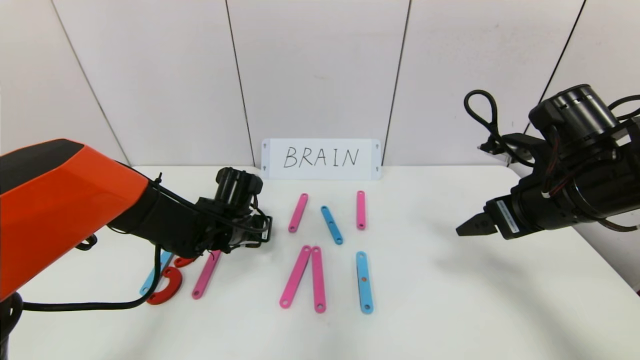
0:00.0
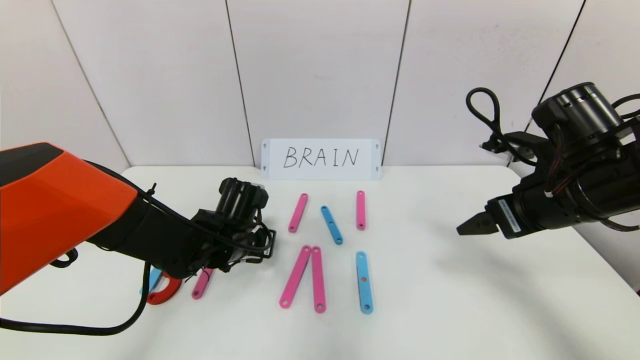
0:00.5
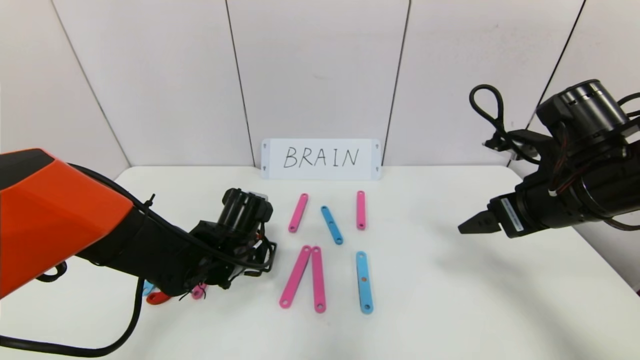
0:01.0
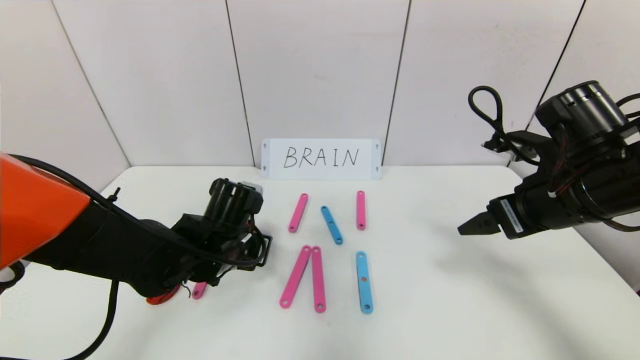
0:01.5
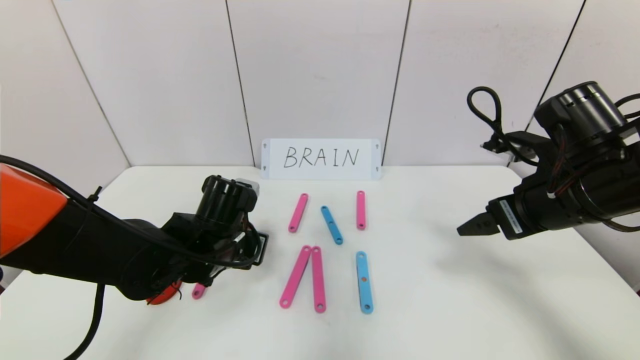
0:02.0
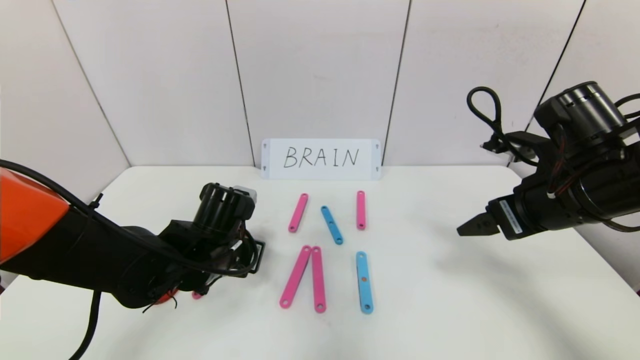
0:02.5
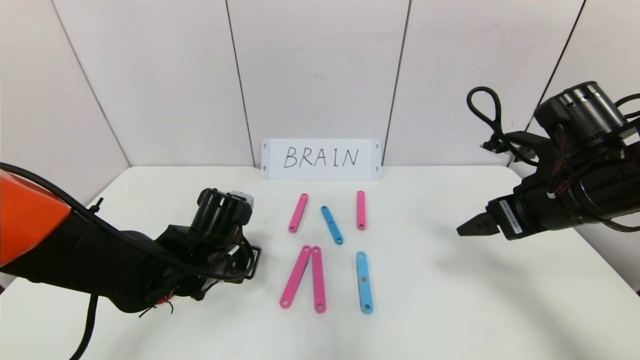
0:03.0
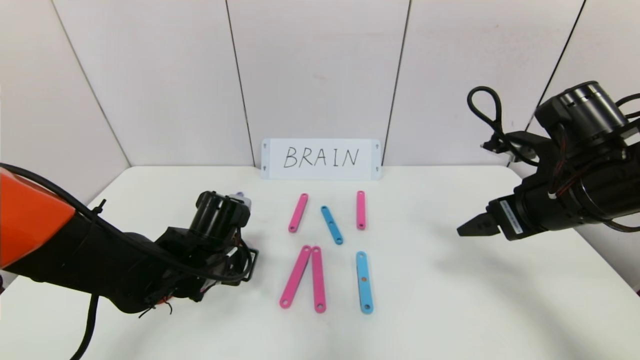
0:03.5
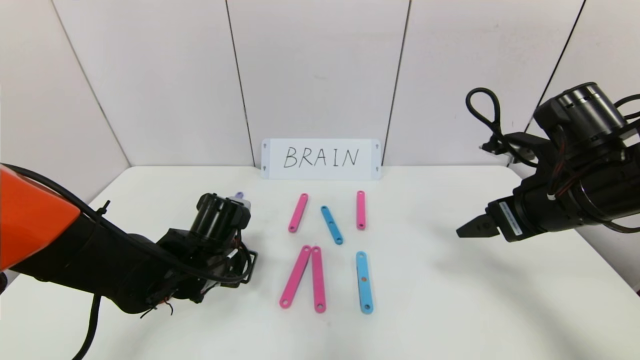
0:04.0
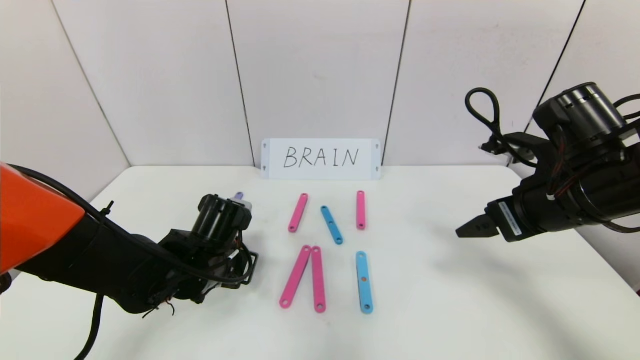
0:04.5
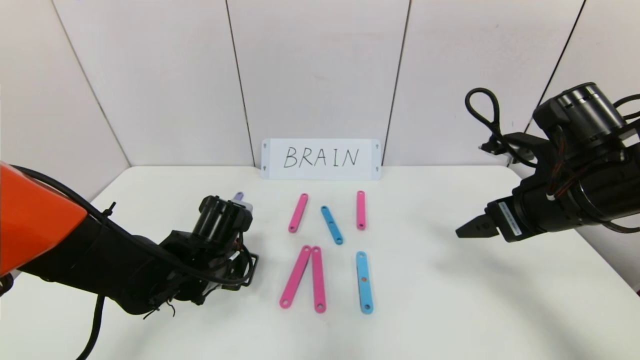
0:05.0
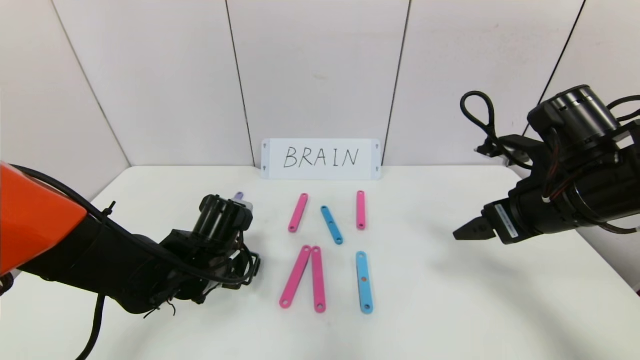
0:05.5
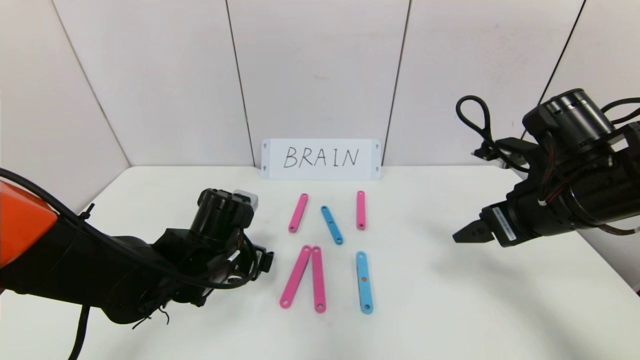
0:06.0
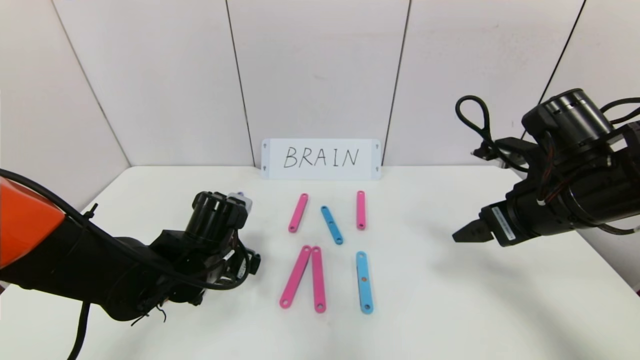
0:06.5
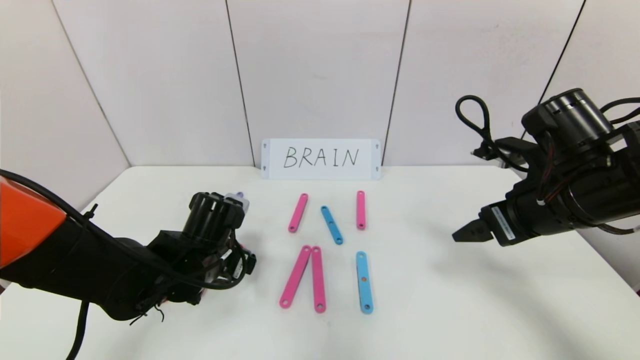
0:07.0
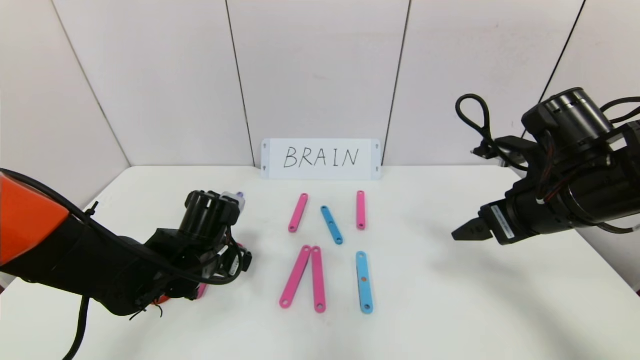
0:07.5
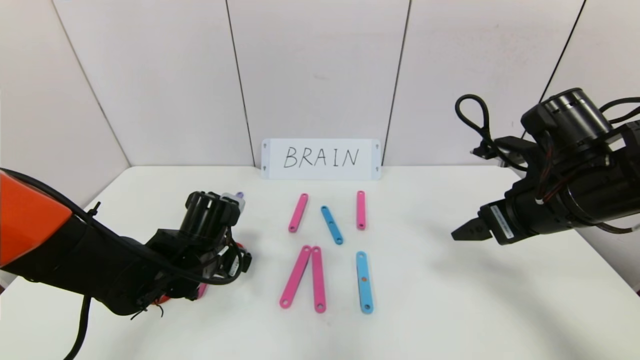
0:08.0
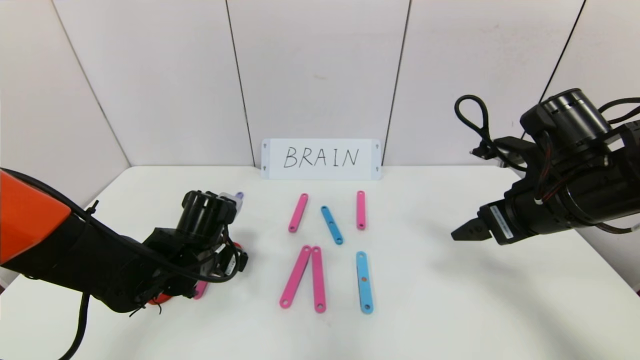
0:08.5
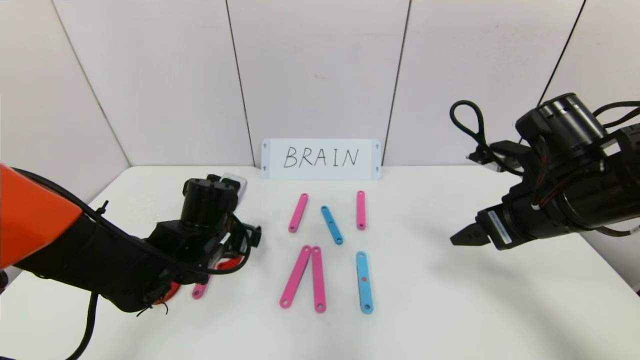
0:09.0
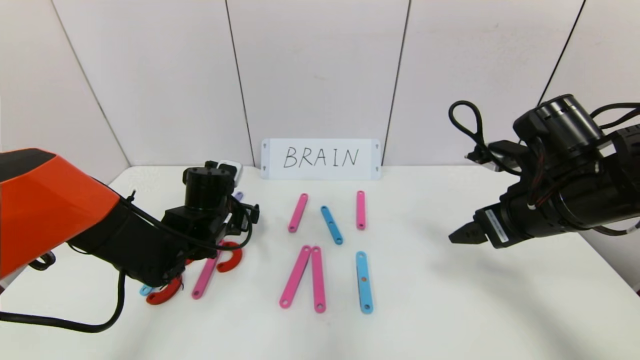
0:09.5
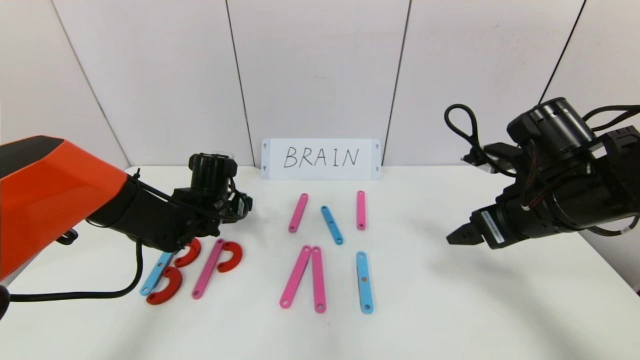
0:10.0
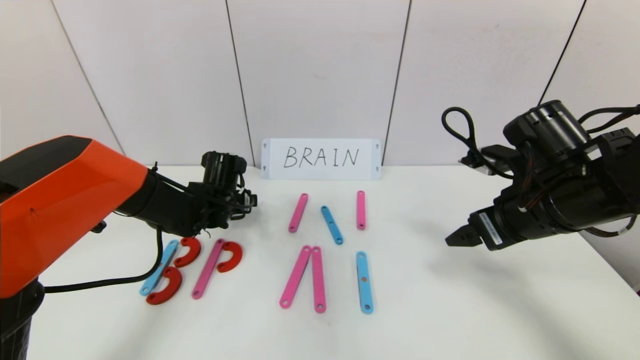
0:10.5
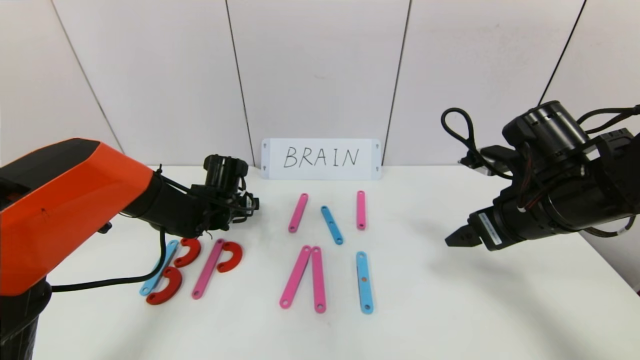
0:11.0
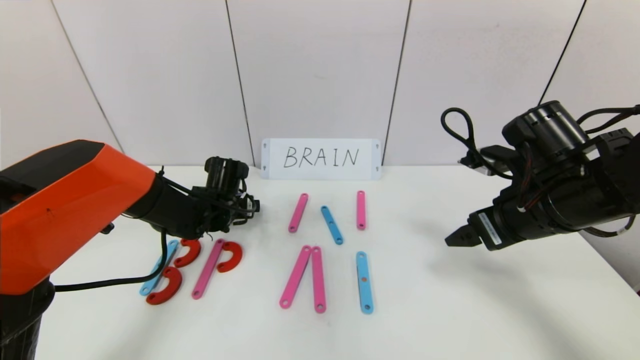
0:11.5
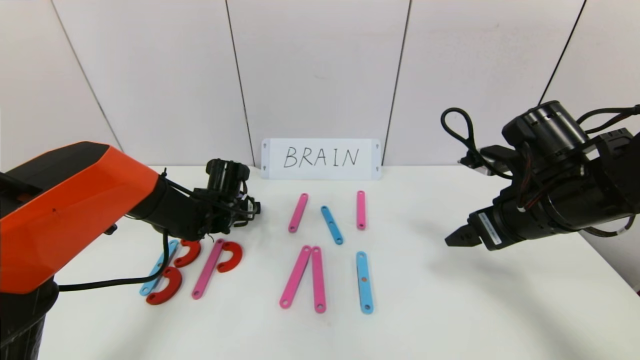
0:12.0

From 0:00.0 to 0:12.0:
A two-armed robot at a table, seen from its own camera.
Task of the whole recording: rearrange the word baai as brain.
From 0:00.0 to 0:02.0: The left gripper shifts approximately 5 cm backward.
From 0:02.0 to 0:04.0: The grippers move only a little.
From 0:04.0 to 0:06.0: The left gripper opens.
From 0:06.0 to 0:08.0: The grippers move only a little.
From 0:08.0 to 0:10.0: The left gripper goes about 10 cm forward.
From 0:10.0 to 0:12.0: The grippers move only a little.

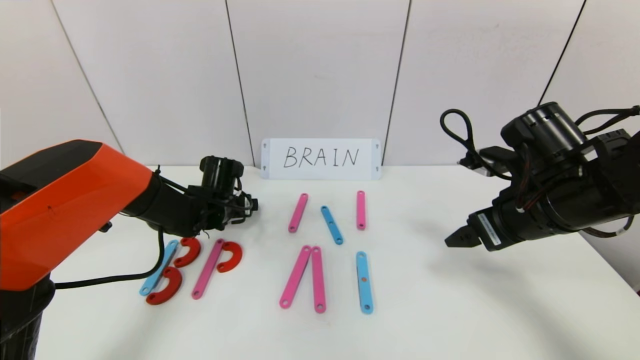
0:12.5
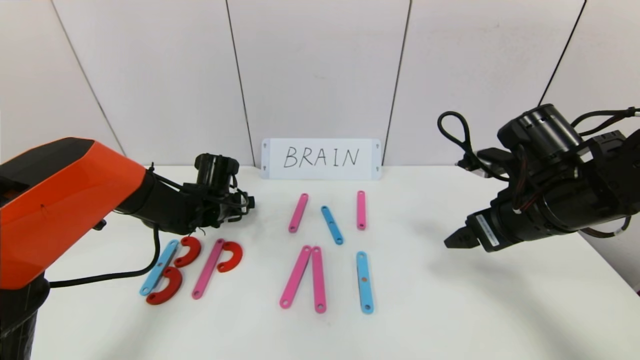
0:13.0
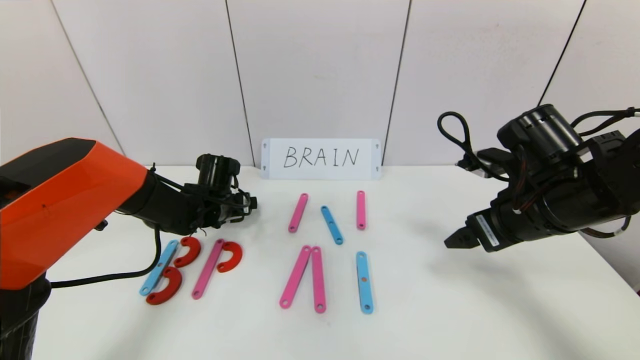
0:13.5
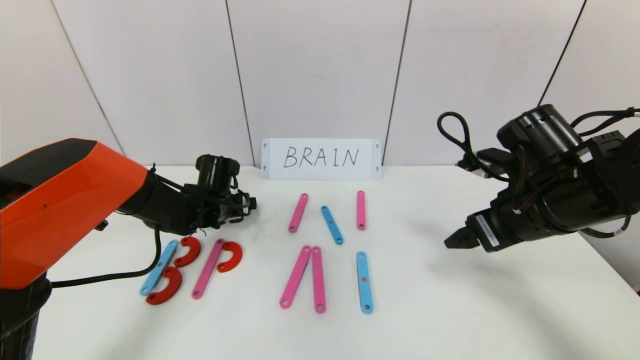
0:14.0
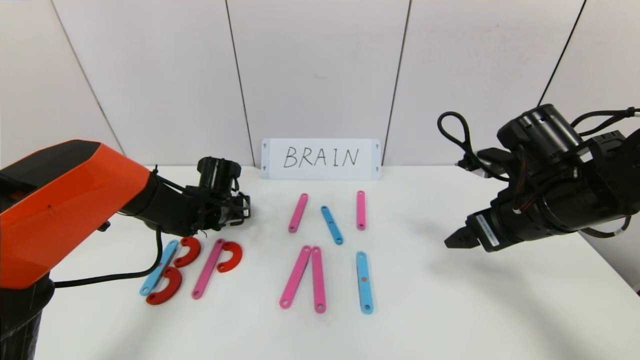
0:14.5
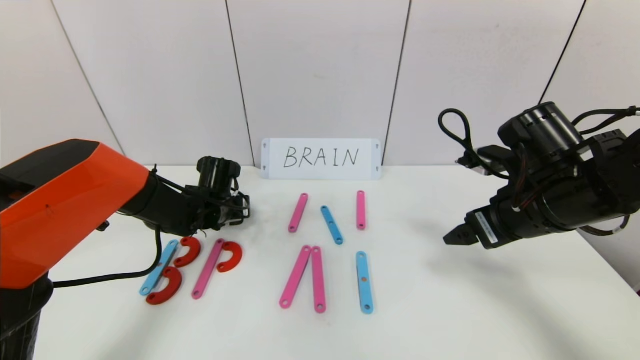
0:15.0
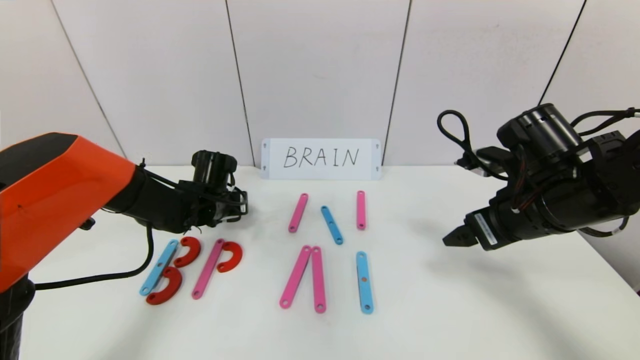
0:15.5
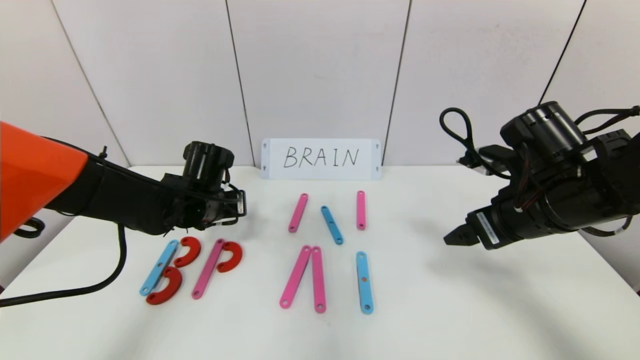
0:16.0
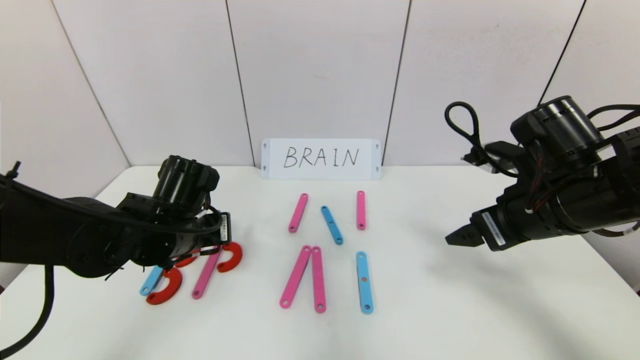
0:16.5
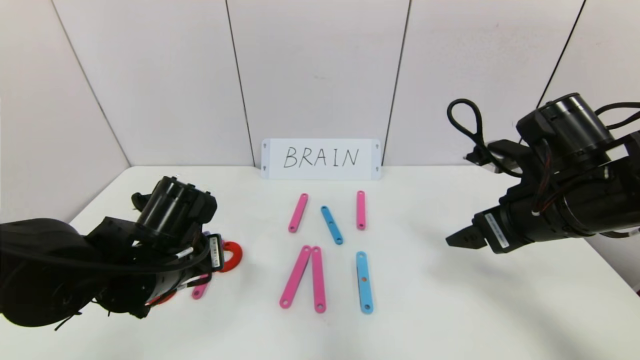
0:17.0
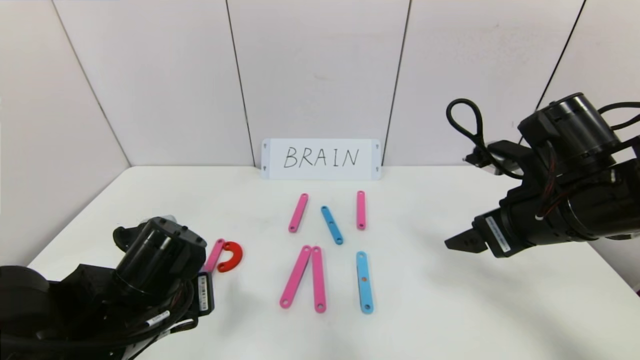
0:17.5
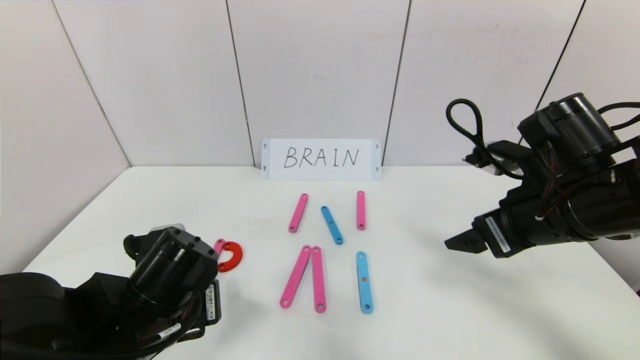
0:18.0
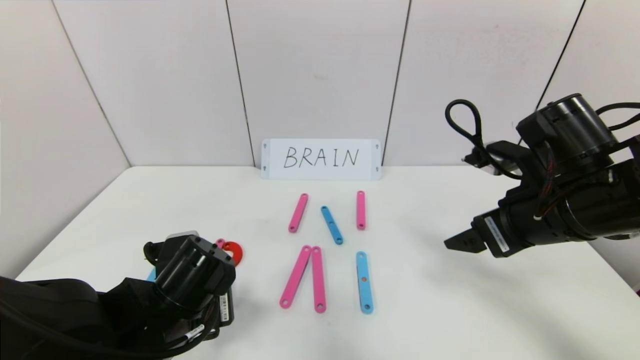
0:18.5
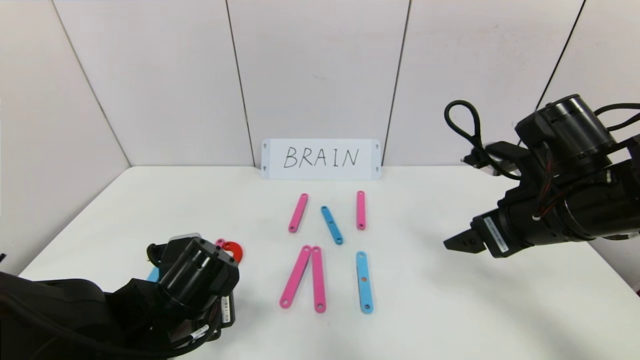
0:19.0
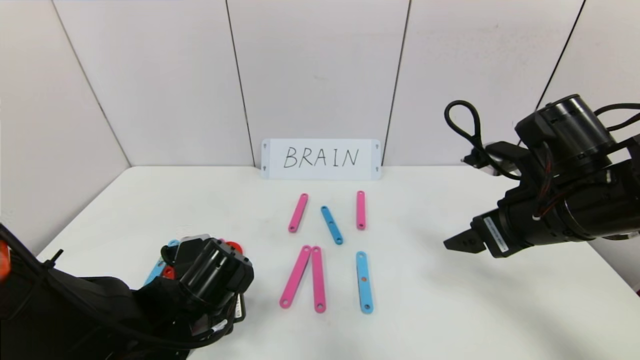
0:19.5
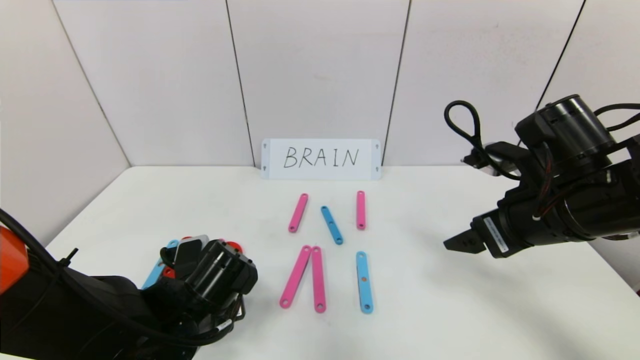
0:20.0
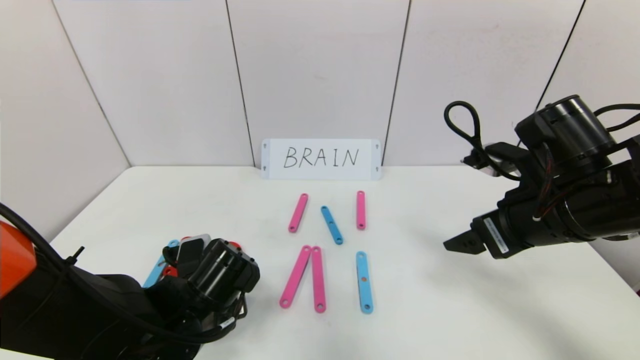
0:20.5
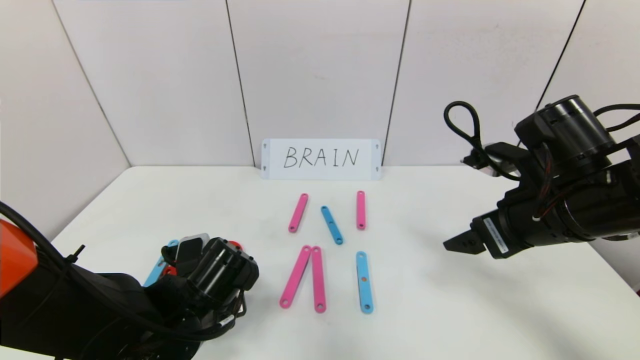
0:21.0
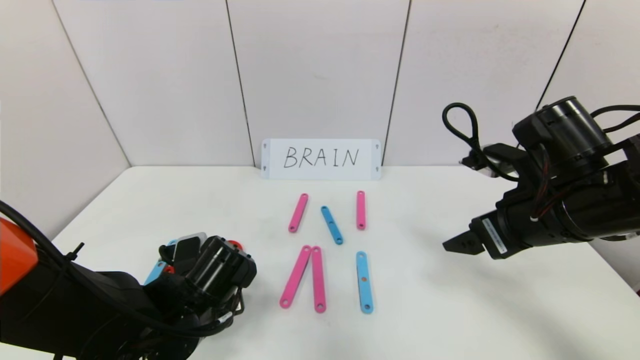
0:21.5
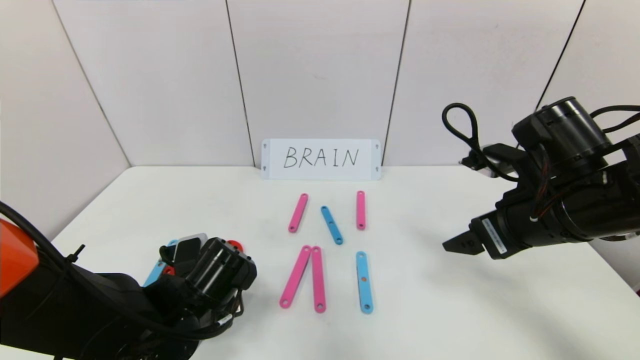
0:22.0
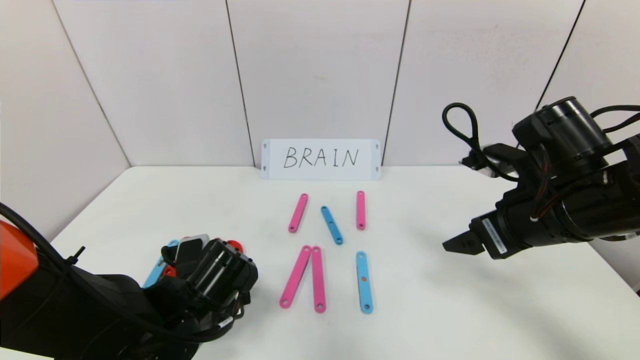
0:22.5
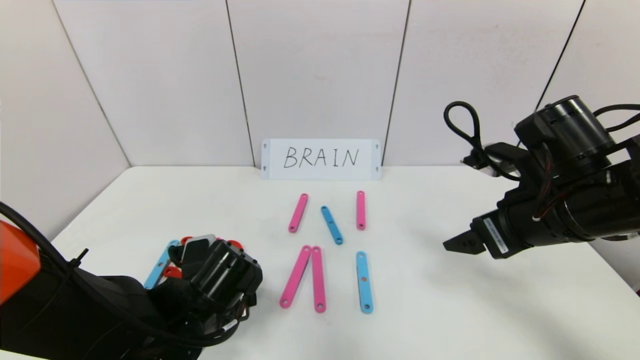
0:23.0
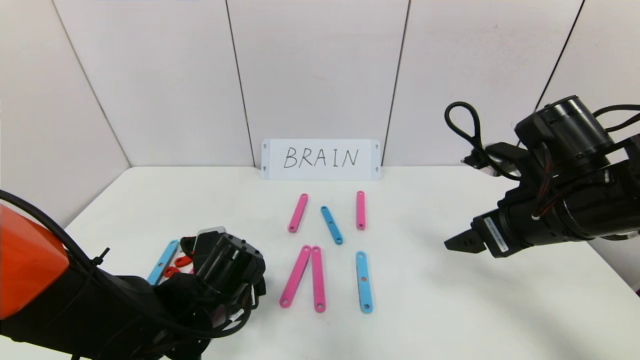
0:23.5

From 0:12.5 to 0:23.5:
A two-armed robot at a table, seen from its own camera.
Task of the whole recording: rearrange the word baai as brain.
From 0:12.5 to 0:14.5: The left gripper closes up.
From 0:14.5 to 0:16.0: The left gripper shifts some 10 cm backward and upward, and closes its fingers.
From 0:16.0 to 0:18.0: The left gripper heads backward, covering approximately 20 cm.
From 0:18.0 to 0:20.0: The left gripper ends up about 5 cm from where it was.
From 0:20.0 to 0:21.5: Both grippers stay put.
From 0:21.5 to 0:23.5: The left gripper opens its fingers.
